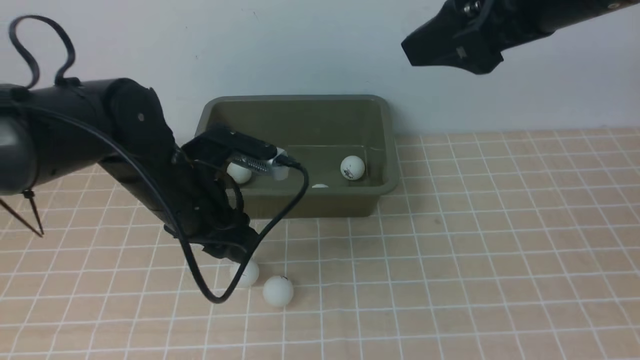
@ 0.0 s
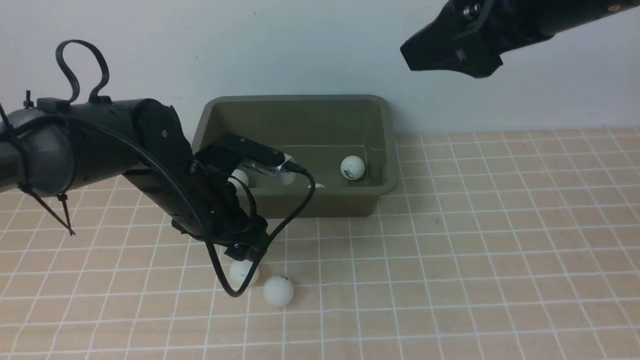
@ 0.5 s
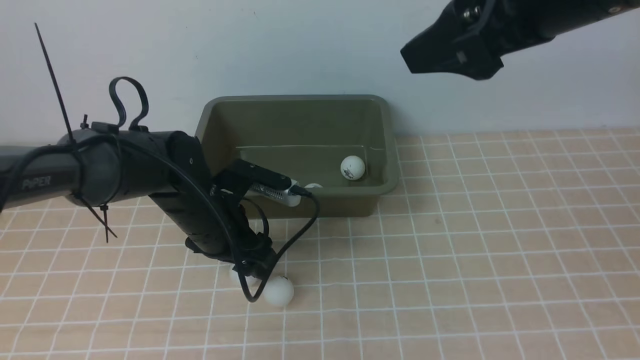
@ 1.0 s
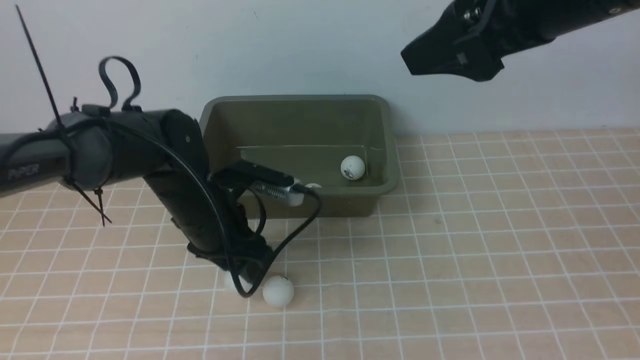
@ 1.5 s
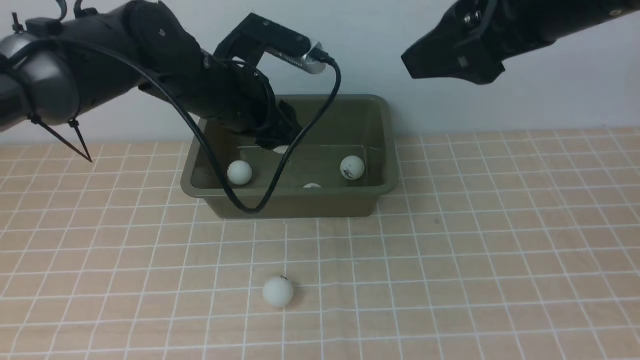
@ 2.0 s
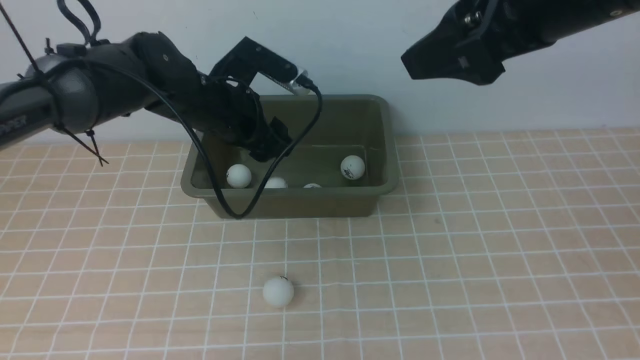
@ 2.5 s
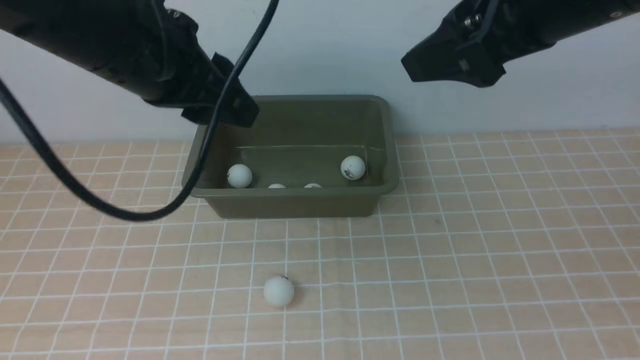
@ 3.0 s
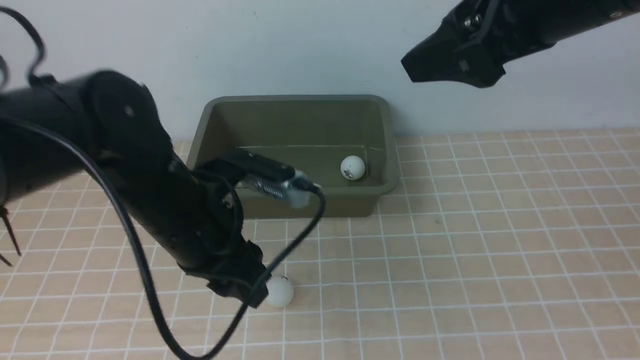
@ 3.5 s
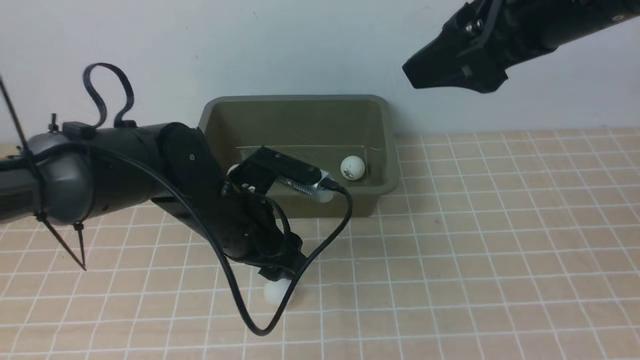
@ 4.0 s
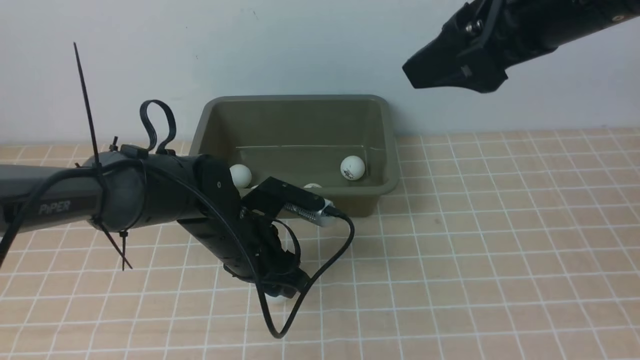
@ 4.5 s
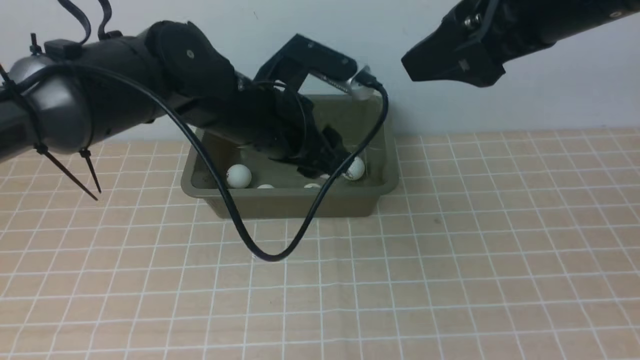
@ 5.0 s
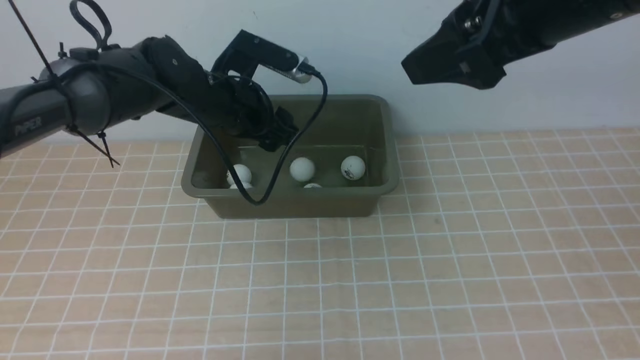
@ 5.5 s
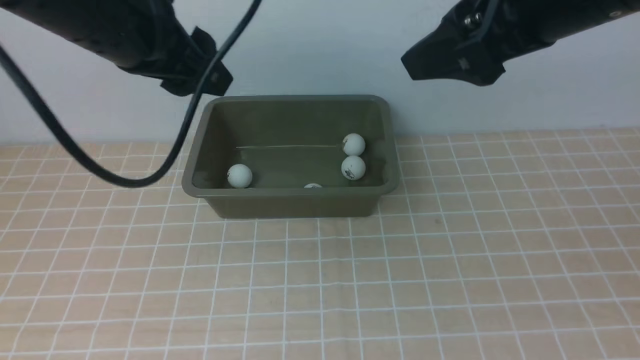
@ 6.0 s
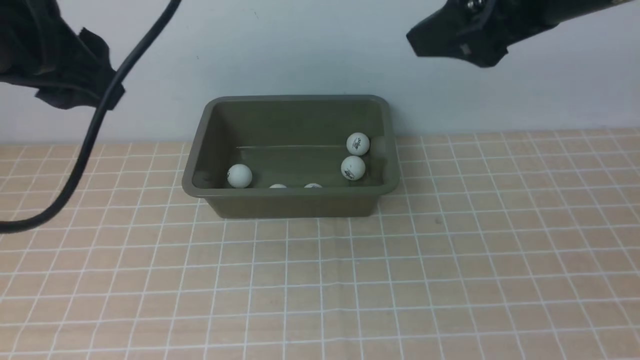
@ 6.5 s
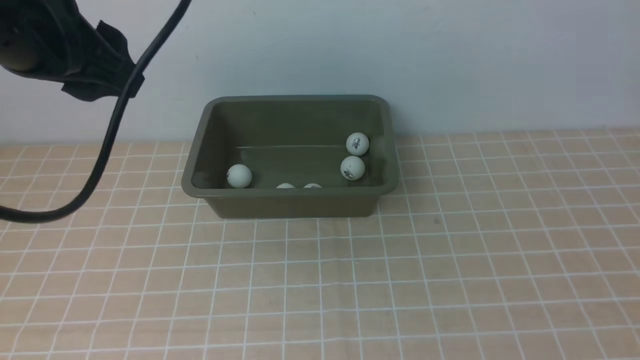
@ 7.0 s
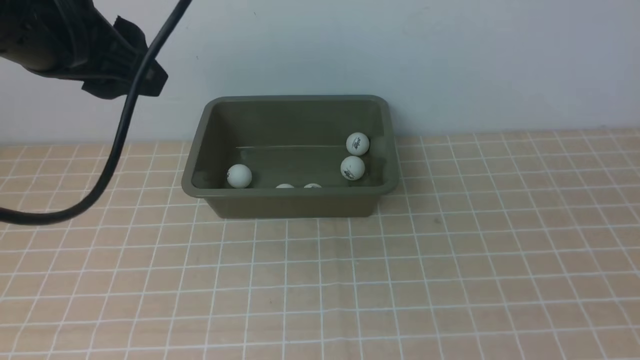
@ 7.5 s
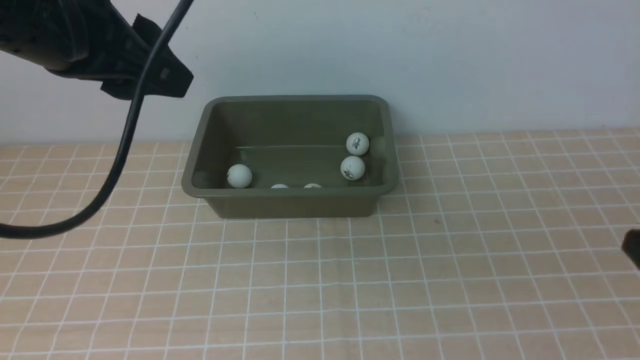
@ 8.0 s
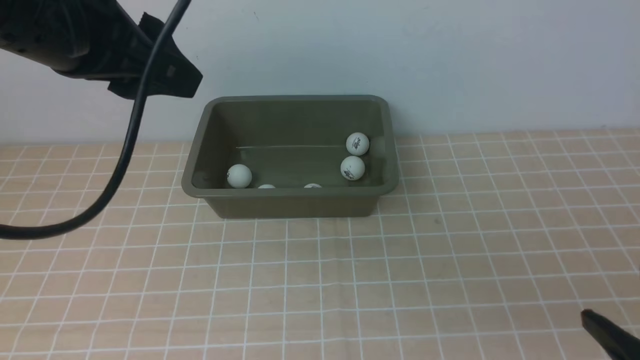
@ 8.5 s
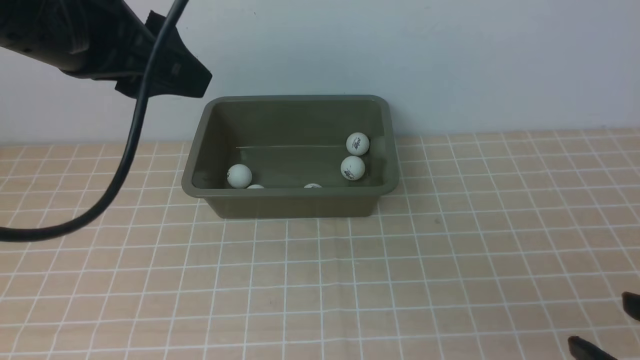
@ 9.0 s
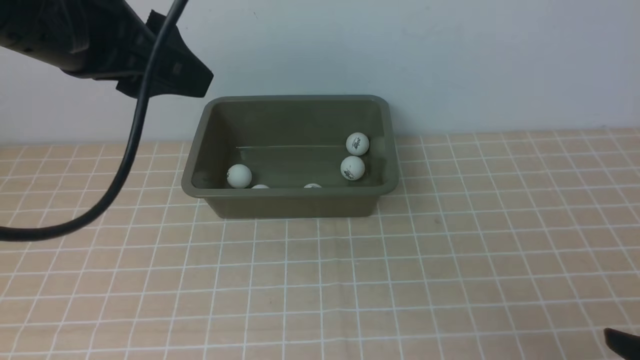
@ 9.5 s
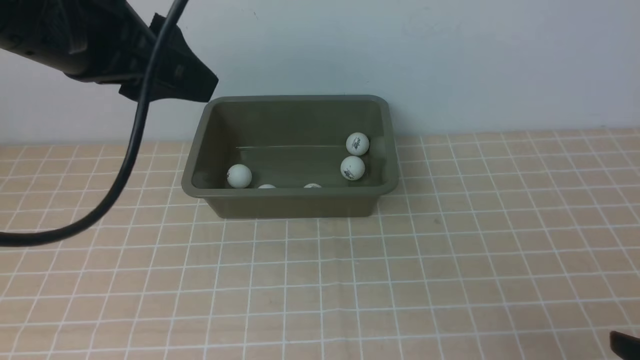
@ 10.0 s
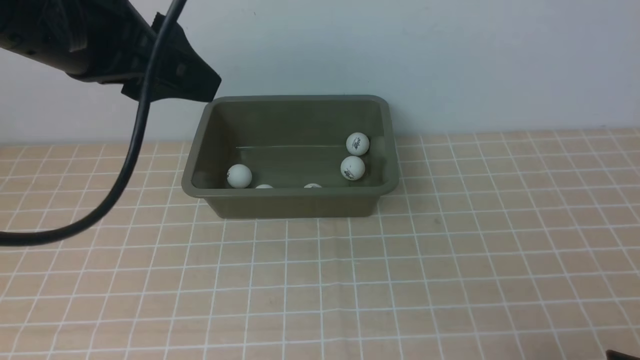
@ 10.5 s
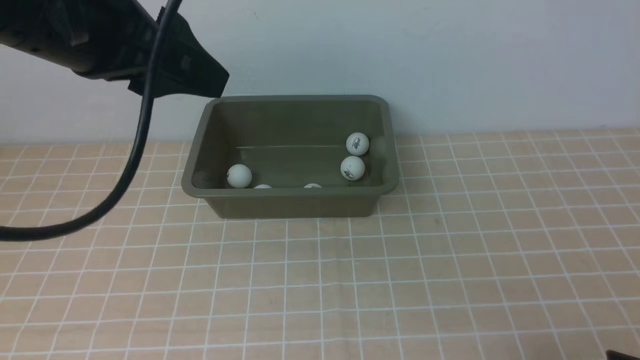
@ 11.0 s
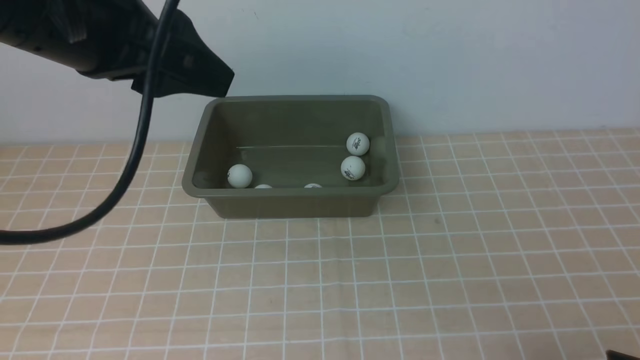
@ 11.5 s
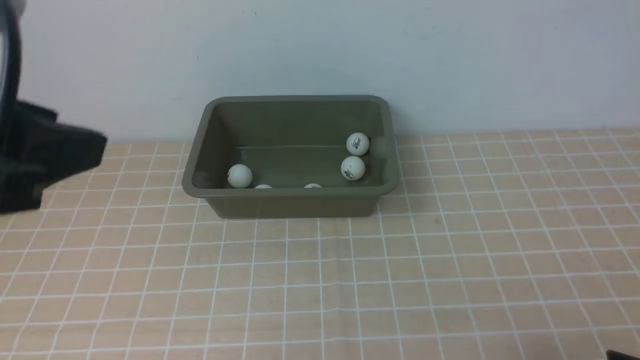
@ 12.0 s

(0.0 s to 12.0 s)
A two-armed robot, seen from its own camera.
Step, 0.0 s - 1.5 s: use the left arm to clamp the table tennis ball closest to it.
Step, 2.0 s - 2.5 s: use the left arm to put the table tennis ball into the box.
Step, 3.0 s - 5.0 s: use the left arm to clamp the table tennis ball closest to it.
Step, 5.5 s - 6.0 s: use the left arm to put the table tennis ball into the box.
0.0 s - 2.0 s: The left gripper travels forward by roughly 10 cm, reaches about 5 cm downward, then returns, and opens and closes again.
2.0 s - 4.0 s: The left gripper is displaced backward and downward by roughly 10 cm, and opens up.
4.0 s - 6.0 s: The left gripper is displaced upward by some 20 cm.
6.0 s - 8.0 s: The right gripper is displaced backward, downward and to the right by roughly 25 cm. Meanwhile the left gripper goes approximately 5 cm backward.
8.0 s - 10.0 s: The right gripper shifts roughly 15 cm downward.
10.0 s - 12.0 s: The left gripper is displaced backward and to the left by approximately 10 cm.

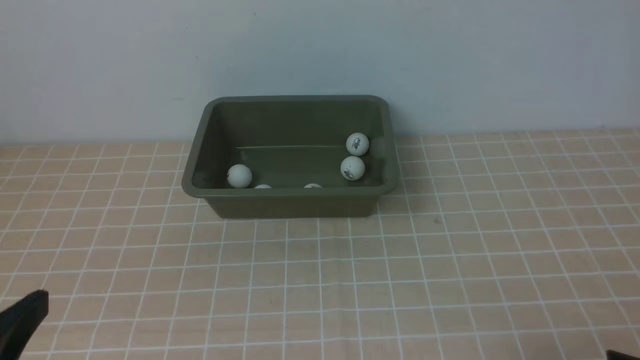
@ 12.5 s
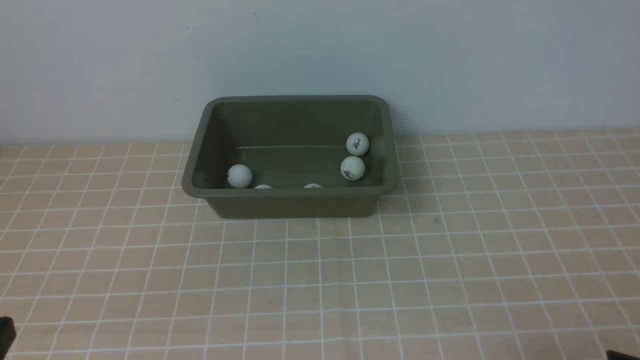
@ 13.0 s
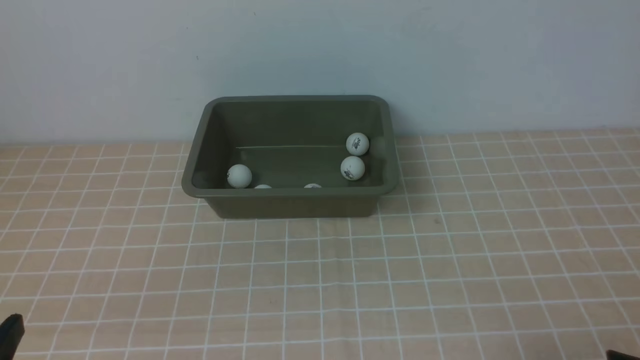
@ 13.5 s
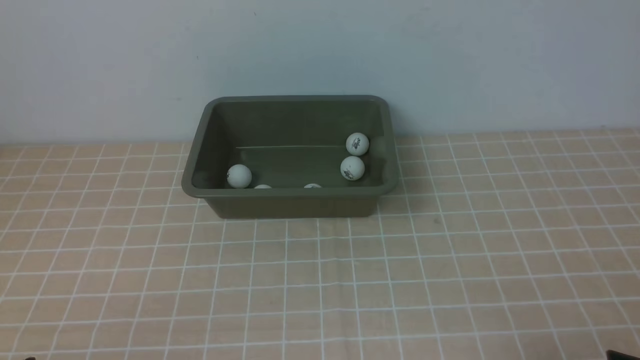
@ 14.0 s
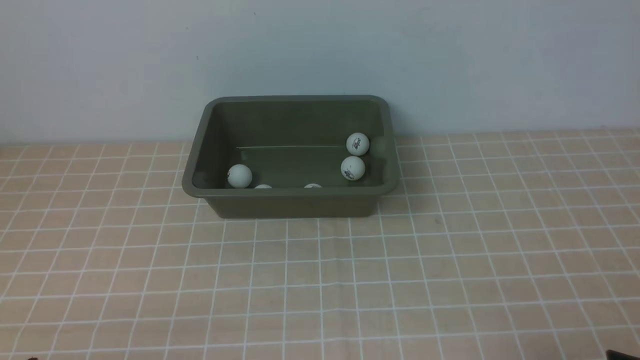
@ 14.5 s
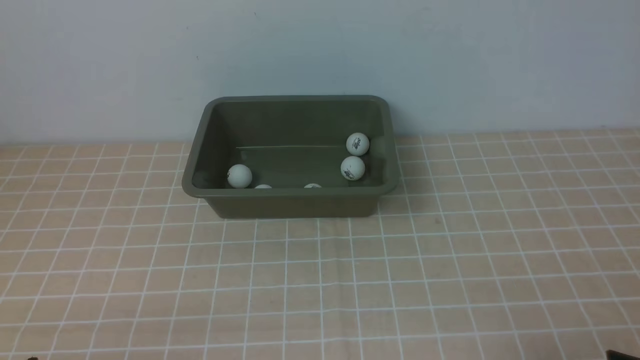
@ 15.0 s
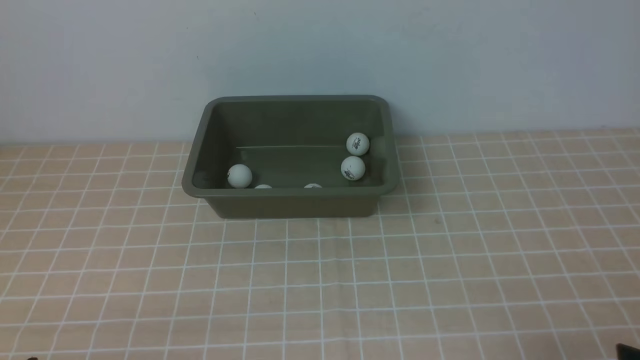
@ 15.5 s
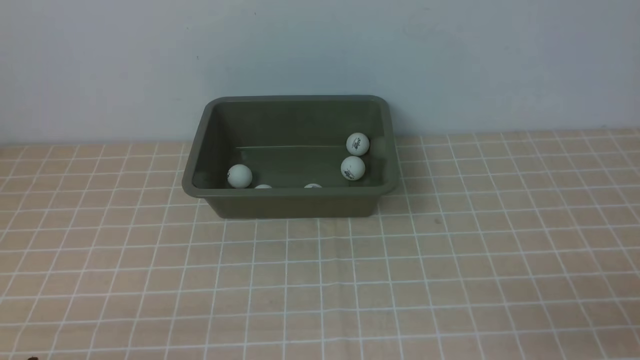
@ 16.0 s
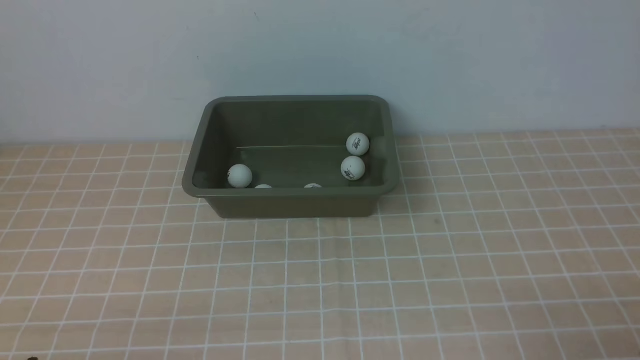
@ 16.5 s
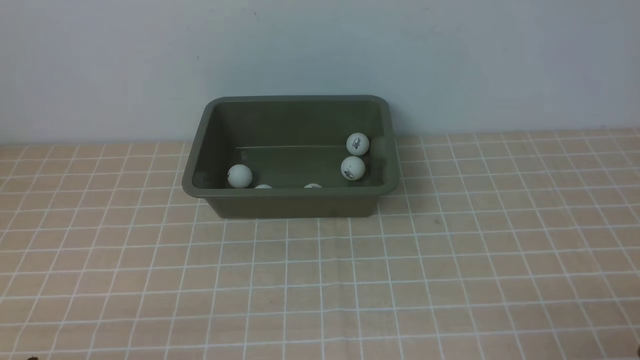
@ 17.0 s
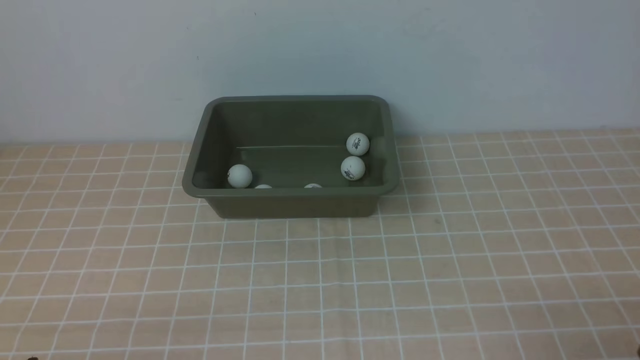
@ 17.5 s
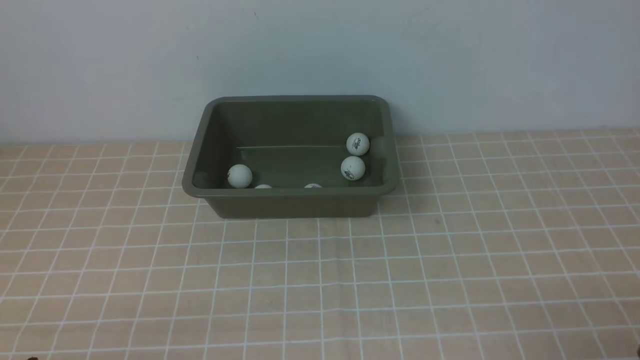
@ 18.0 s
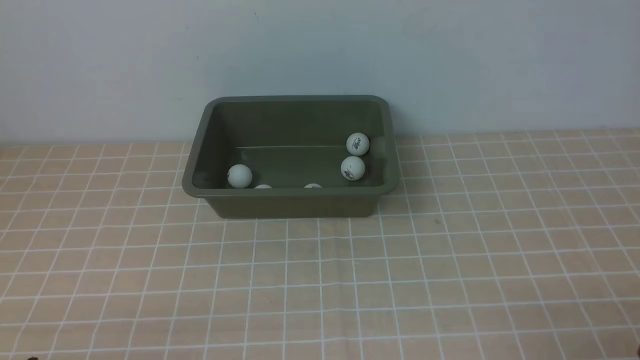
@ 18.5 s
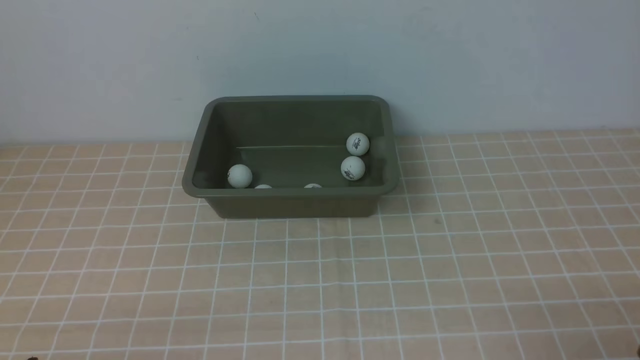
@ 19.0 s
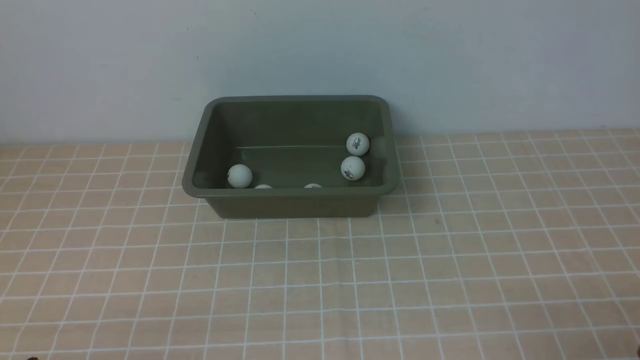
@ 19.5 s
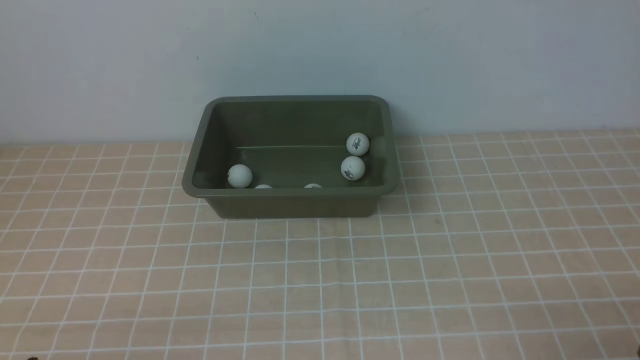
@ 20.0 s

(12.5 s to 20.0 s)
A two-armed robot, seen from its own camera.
12.5 s - 14.5 s: The left gripper heads downward, covering some 15 cm.
16.5 s - 20.0 s: Both grippers stay put.
